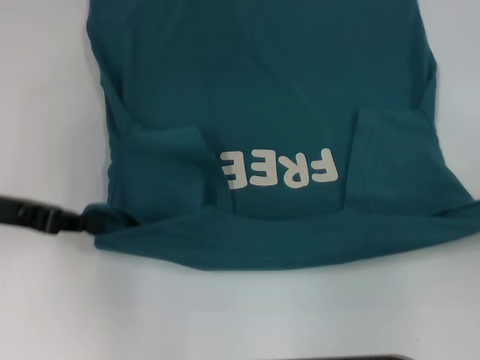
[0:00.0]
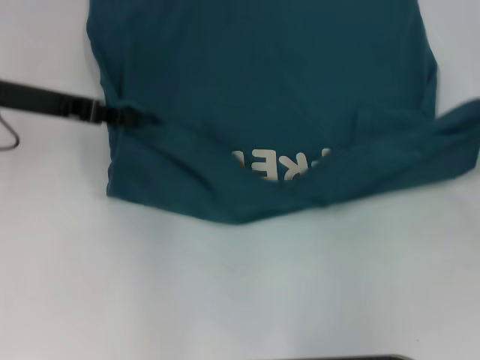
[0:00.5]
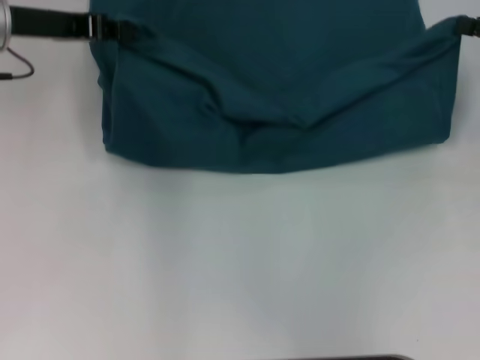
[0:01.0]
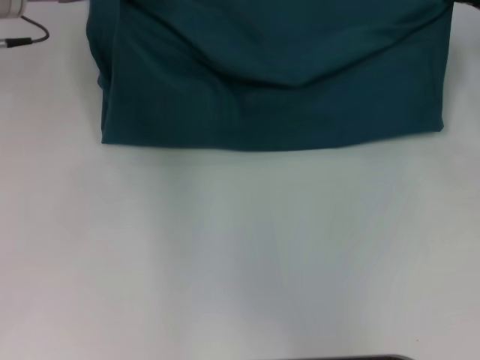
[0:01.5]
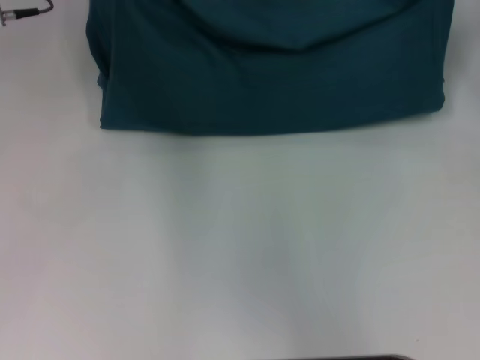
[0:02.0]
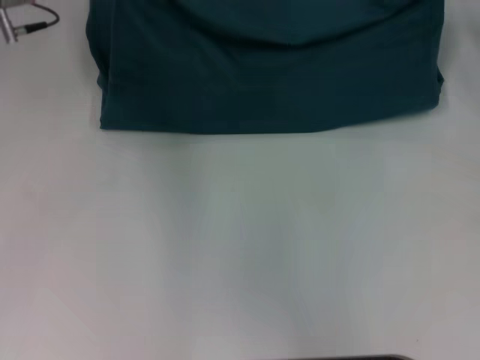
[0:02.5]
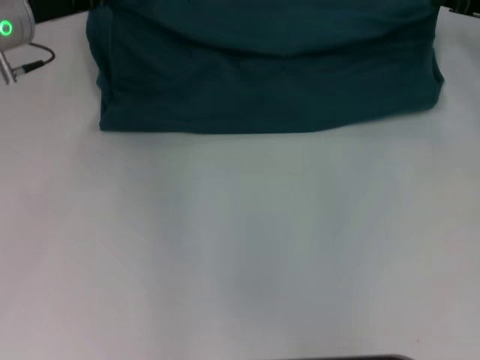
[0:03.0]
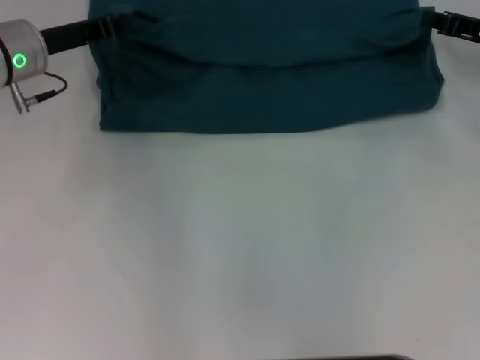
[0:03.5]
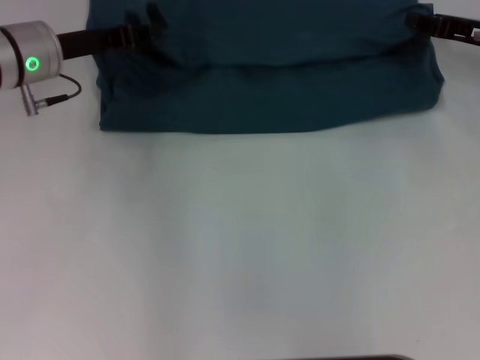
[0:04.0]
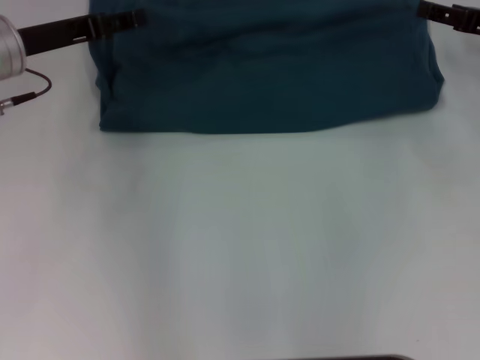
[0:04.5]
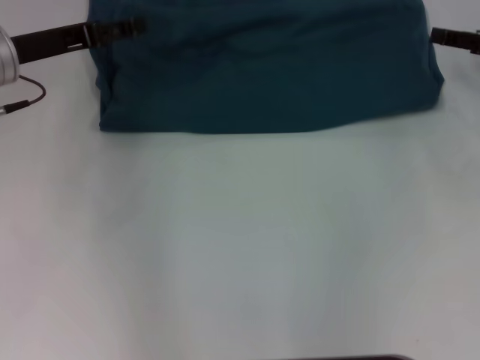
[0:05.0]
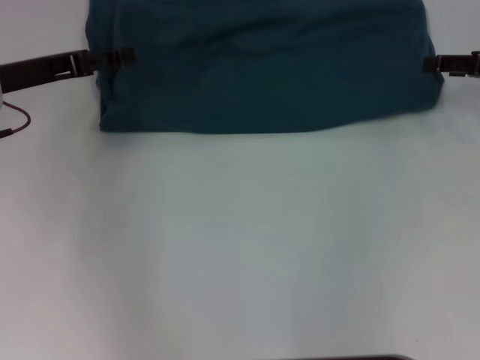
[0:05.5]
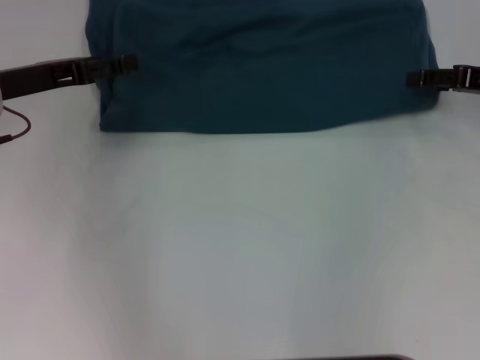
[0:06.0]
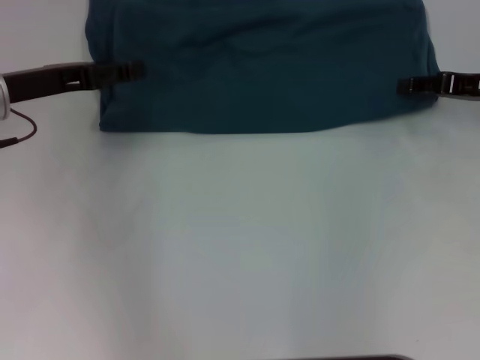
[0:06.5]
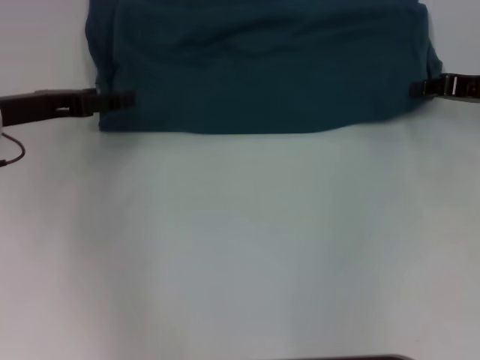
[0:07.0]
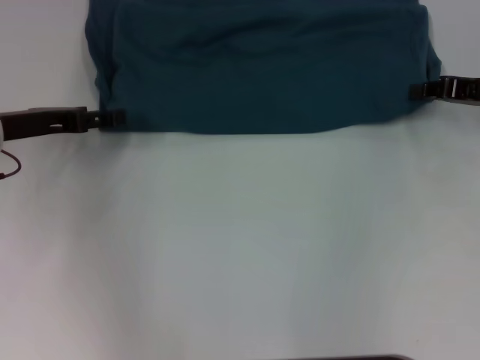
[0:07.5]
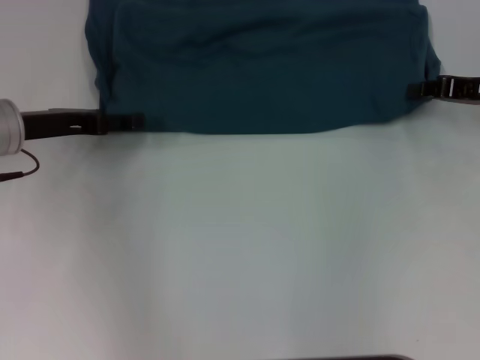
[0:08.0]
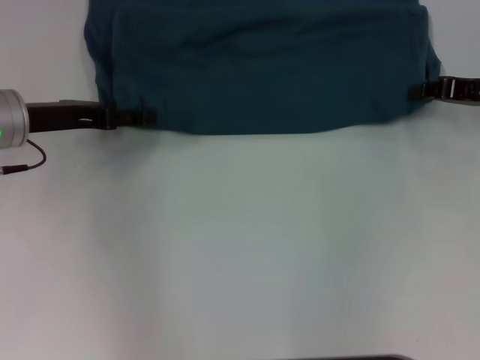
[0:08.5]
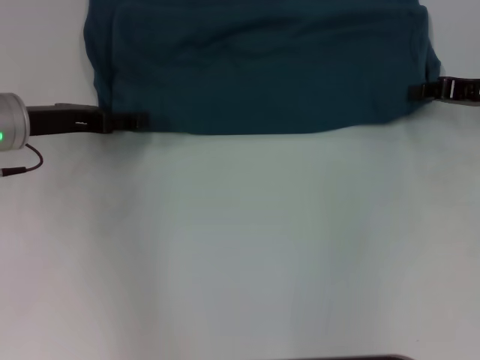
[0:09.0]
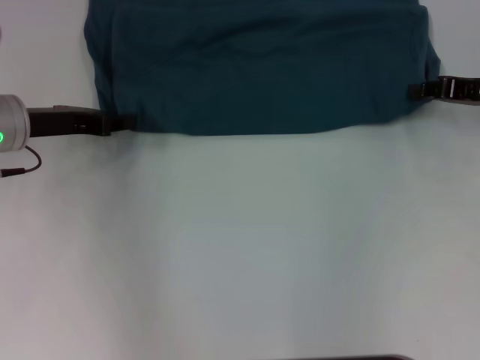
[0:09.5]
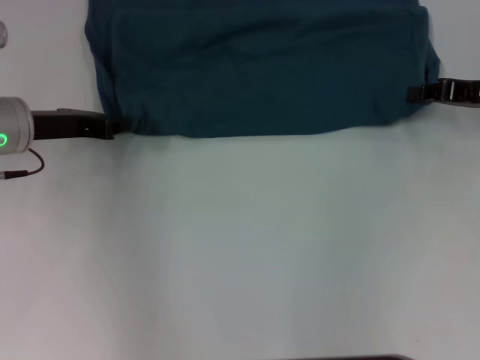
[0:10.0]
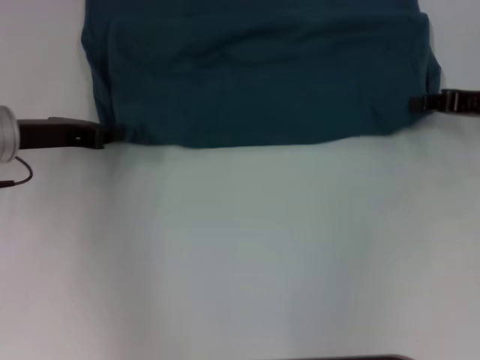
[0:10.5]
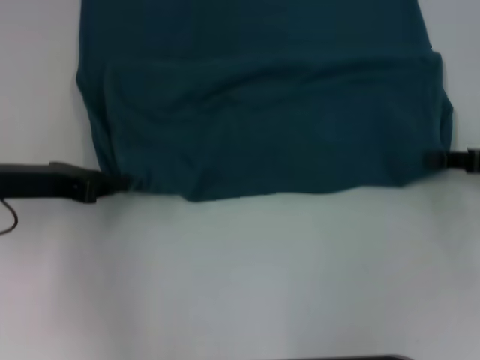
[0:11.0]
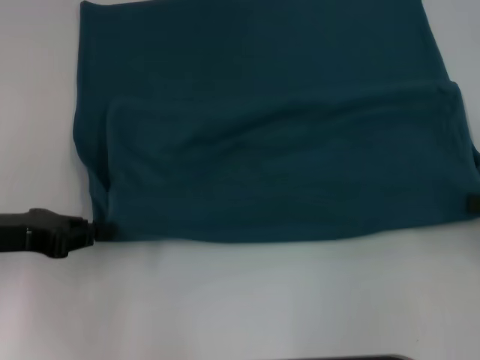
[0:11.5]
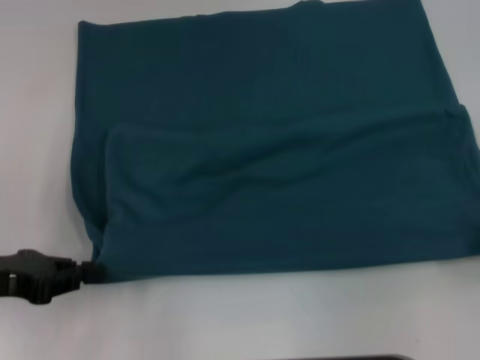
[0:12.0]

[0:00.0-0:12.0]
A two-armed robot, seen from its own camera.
Step, 0.0 to 4.5 s: Fold the clothes to the left.
Step, 0.0 to 4.5 s: Fold the clothes to the right.
0.0 to 2.0 s: The right gripper moves forward, about 25 cm. The left gripper goes some 20 cm forward and to the right.
2.0 to 4.0 s: The grippers both shift downward by about 5 cm.
4.0 to 6.0 s: The left gripper changes place by roughly 5 cm, and opens; the right gripper opens up.
6.0 to 8.0 s: The right gripper closes up.
8.0 to 10.0 s: The left gripper closes its fingers.
10.0 to 12.0 s: The left gripper is displaced backward and to the left by some 15 cm, while the right gripper shifts approximately 20 cm backward and to the right.

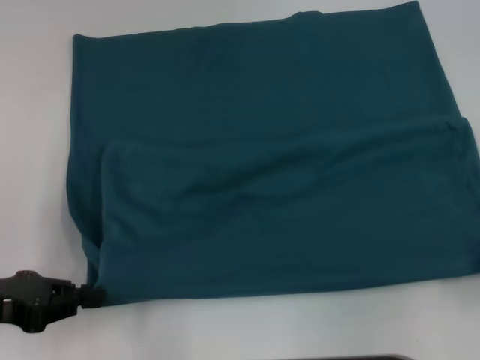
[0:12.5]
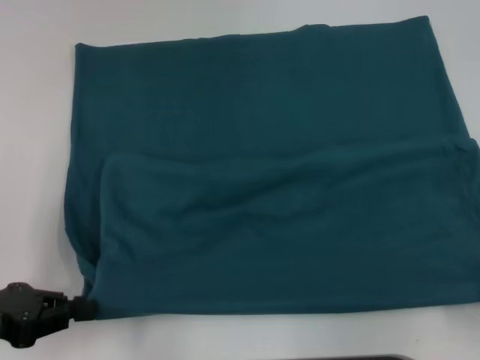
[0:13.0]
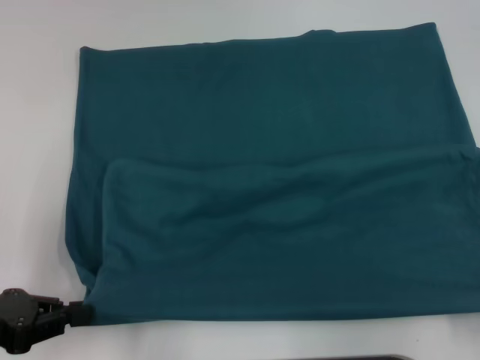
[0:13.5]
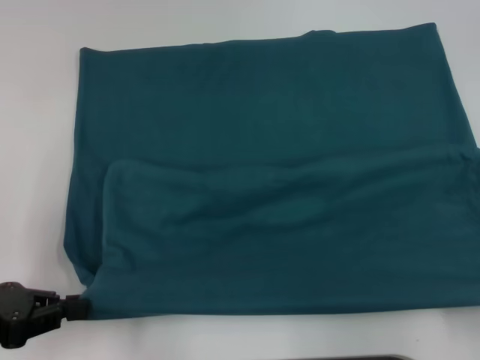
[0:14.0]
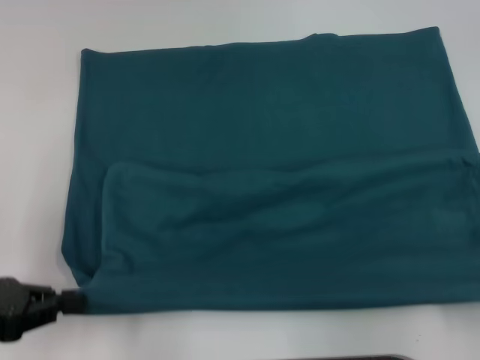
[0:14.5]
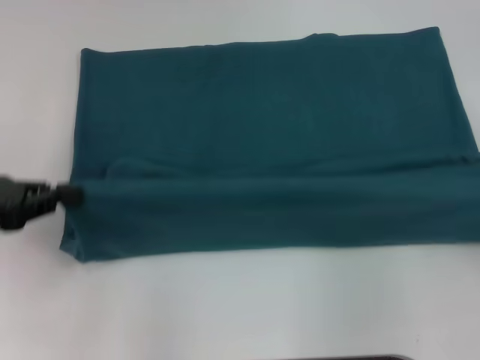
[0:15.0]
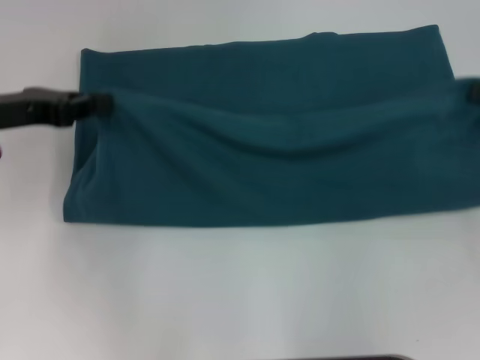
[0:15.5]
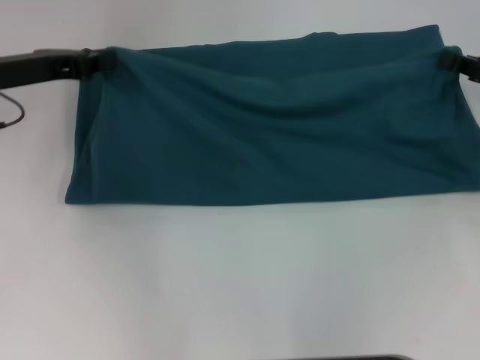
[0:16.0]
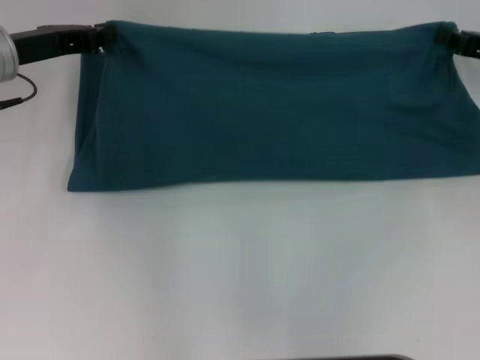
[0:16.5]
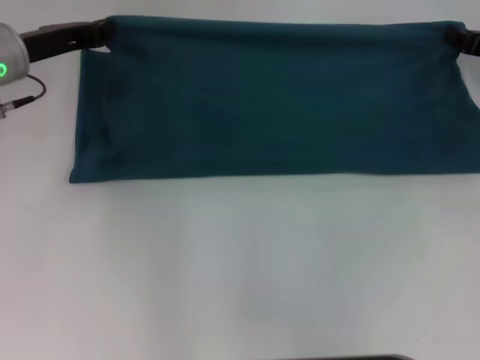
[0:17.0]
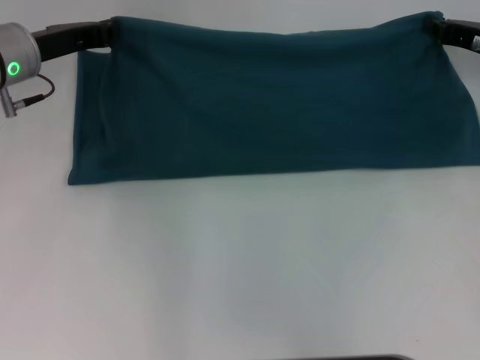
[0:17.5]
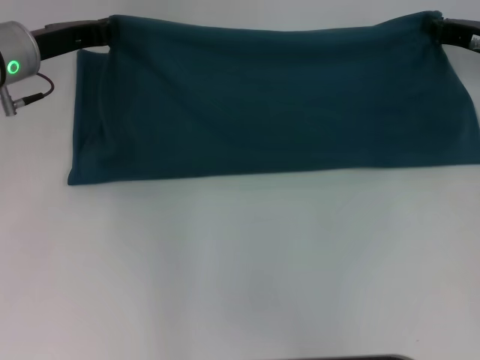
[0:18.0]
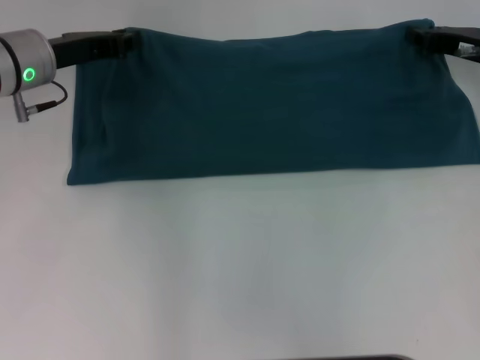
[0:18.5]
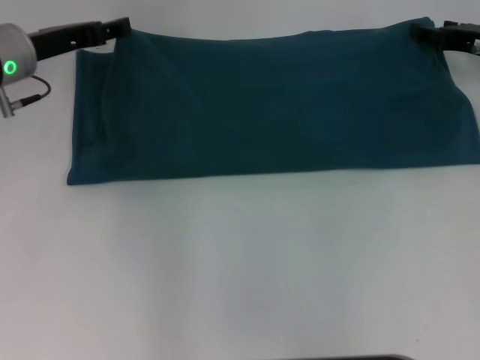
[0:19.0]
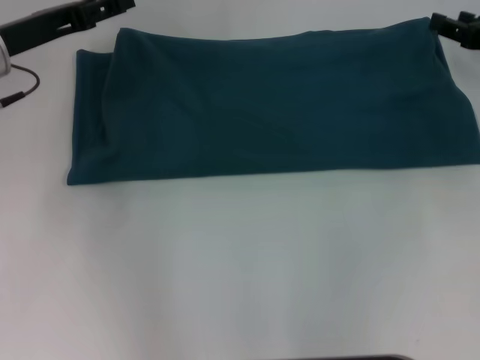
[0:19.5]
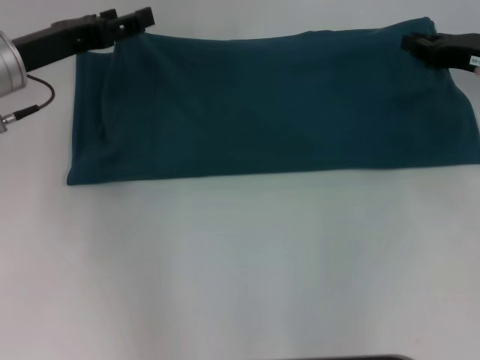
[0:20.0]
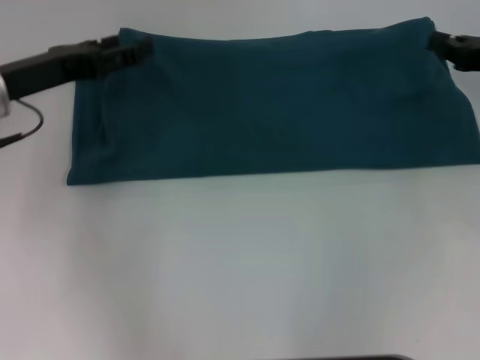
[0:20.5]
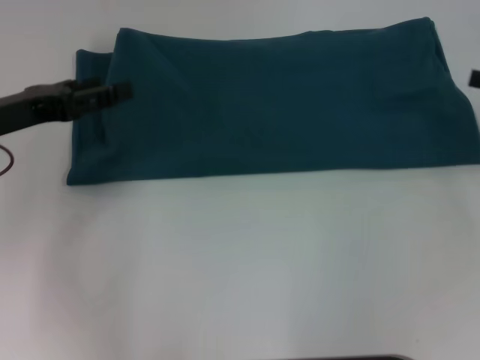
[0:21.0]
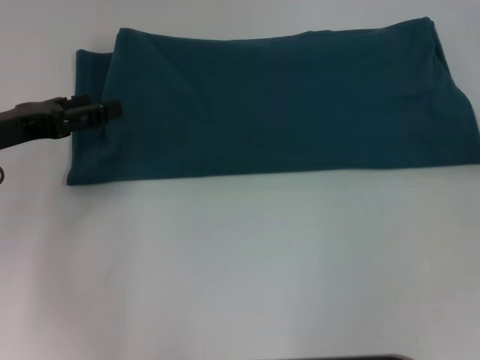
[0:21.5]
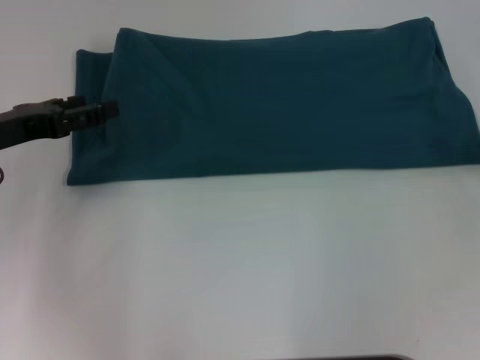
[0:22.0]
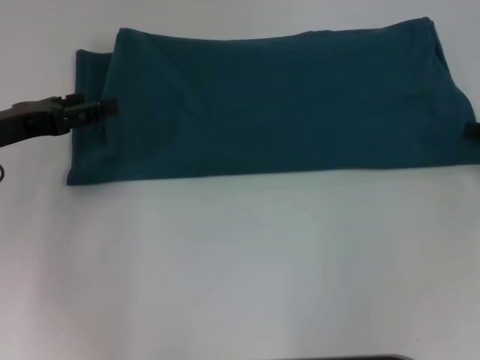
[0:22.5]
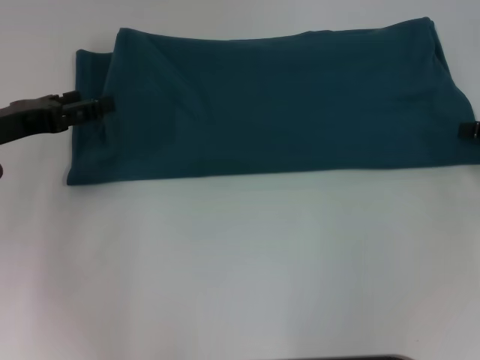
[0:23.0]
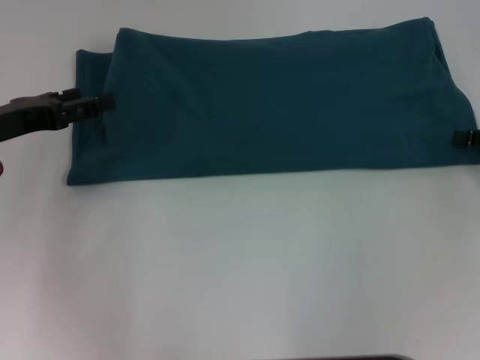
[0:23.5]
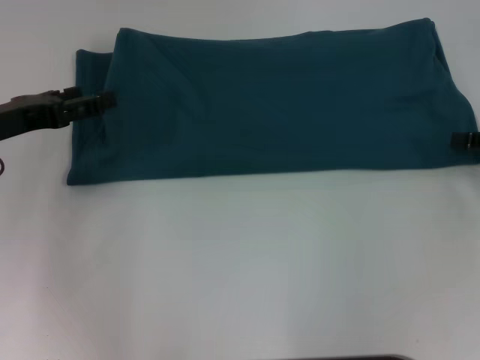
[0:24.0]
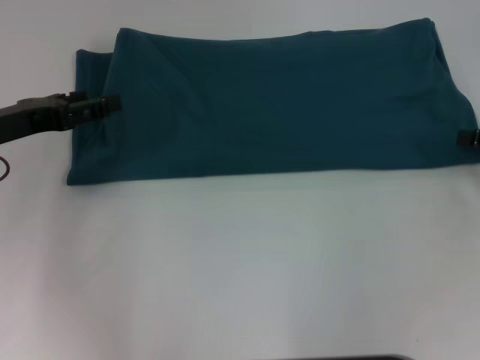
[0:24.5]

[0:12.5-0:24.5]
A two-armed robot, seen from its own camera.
Step, 13.5 to 22.5 s: Fold the clothes to the right.
12.5 to 14.5 s: The grippers make only small movements.
14.5 to 16.5 s: Both grippers move forward, some 25 cm.
16.5 to 18.5 s: The grippers make only small movements.
18.5 to 20.5 s: Both grippers travel together backward, some 5 cm. The left gripper opens. The right gripper opens and closes again.
20.5 to 22.5 s: The left gripper changes place by roughly 5 cm. The right gripper shifts approximately 10 cm to the right and backward, and opens.
22.5 to 24.5 s: The two grippers keep their place.

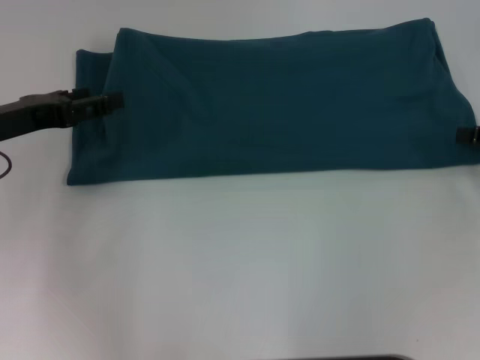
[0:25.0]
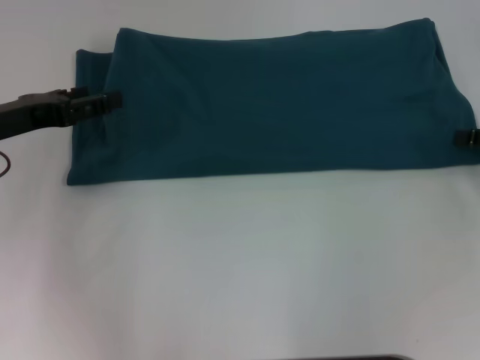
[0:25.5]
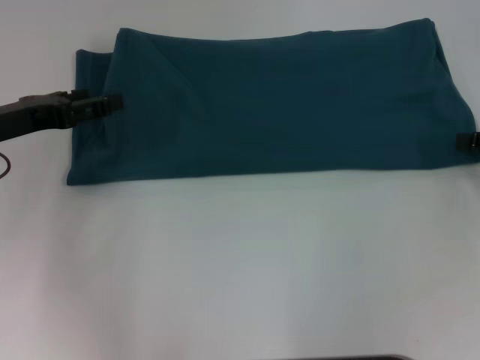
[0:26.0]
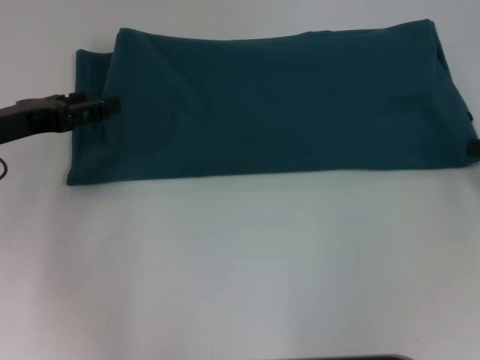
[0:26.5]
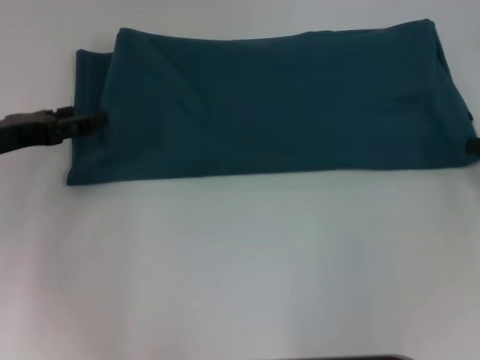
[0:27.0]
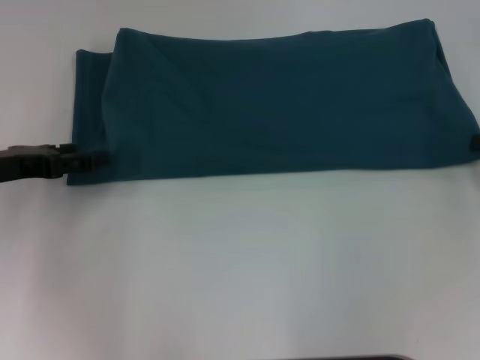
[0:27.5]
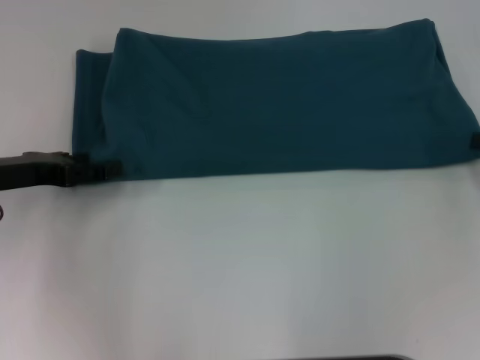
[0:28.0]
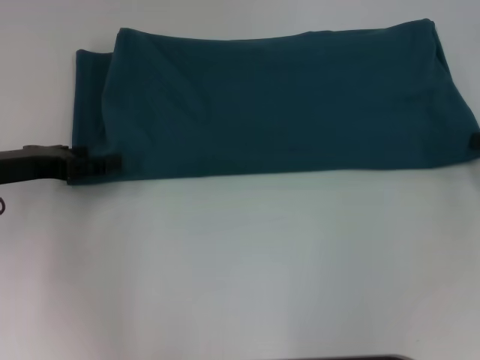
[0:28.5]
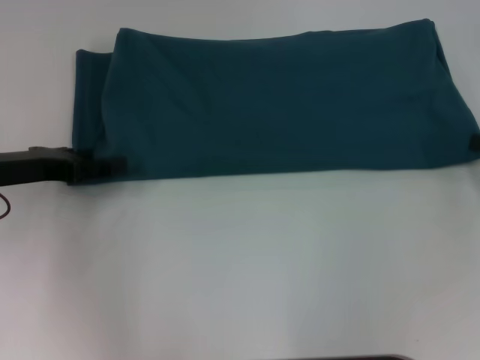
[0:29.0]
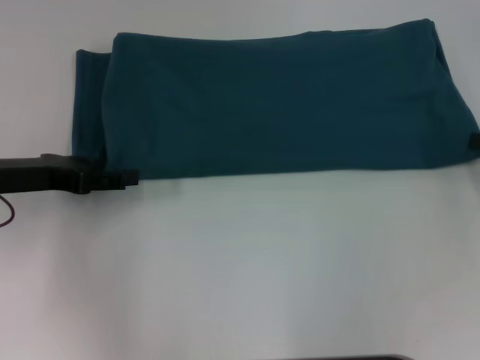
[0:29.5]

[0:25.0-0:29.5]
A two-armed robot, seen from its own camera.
27.0 to 29.5 s: There are only small adjustments of the grippers.
